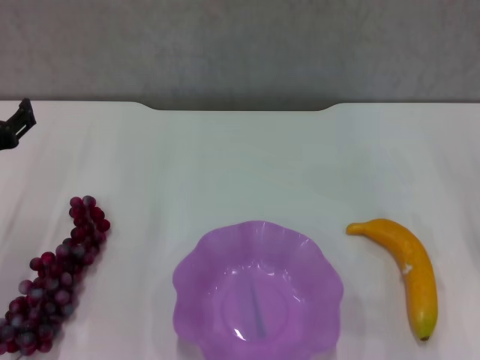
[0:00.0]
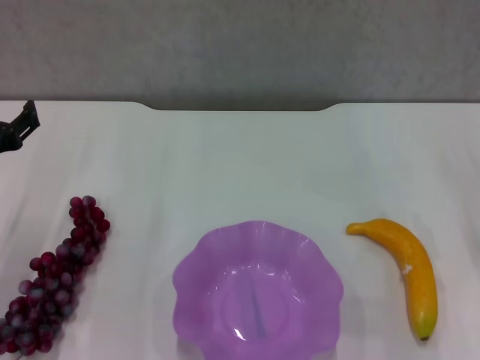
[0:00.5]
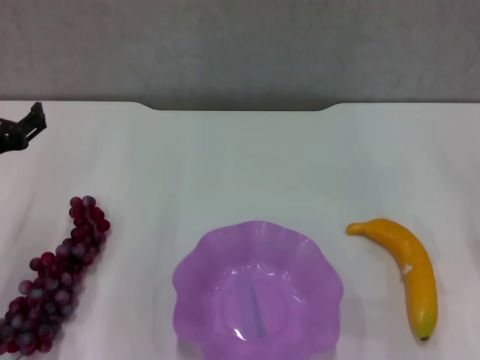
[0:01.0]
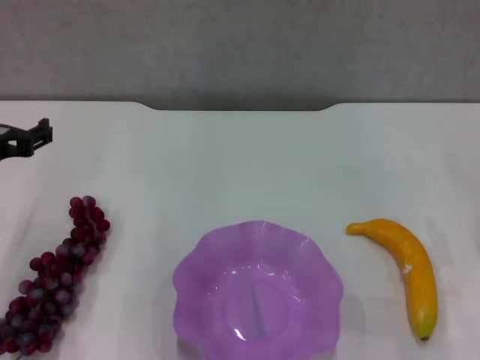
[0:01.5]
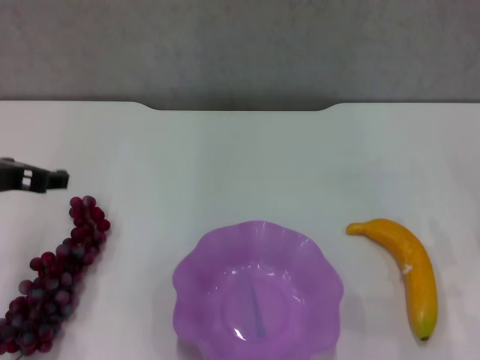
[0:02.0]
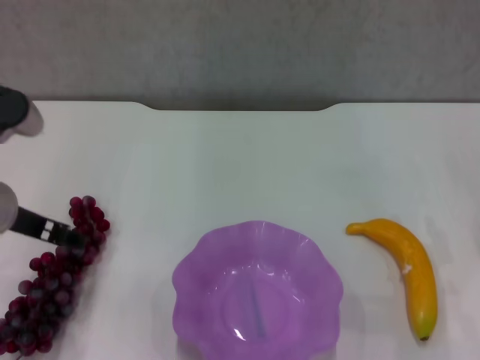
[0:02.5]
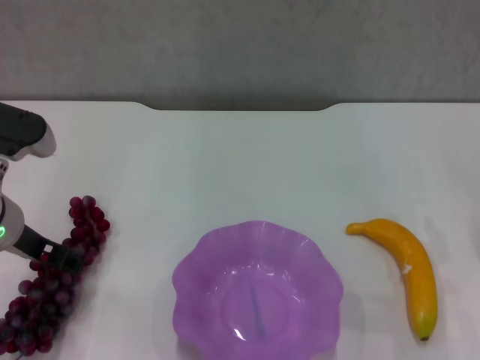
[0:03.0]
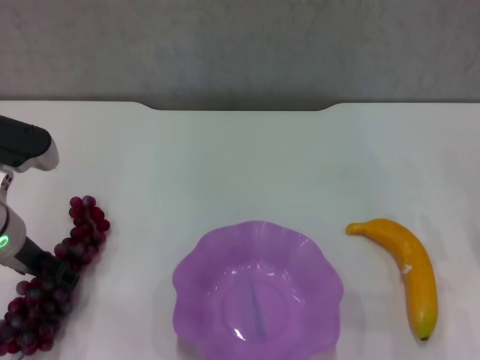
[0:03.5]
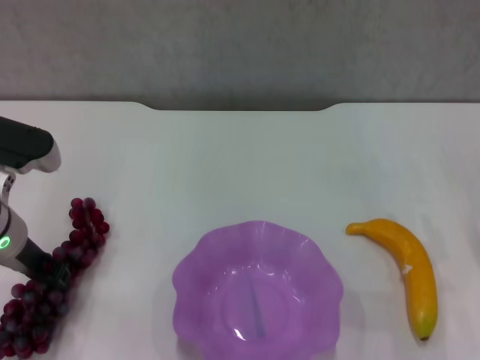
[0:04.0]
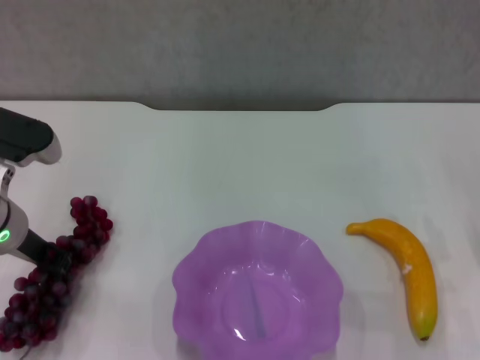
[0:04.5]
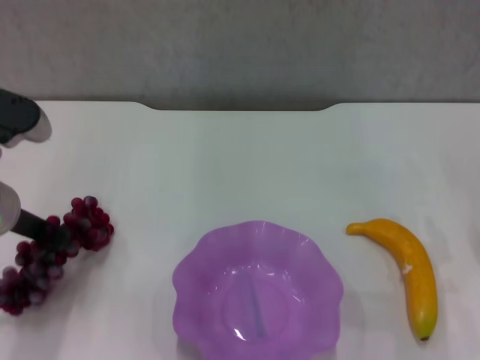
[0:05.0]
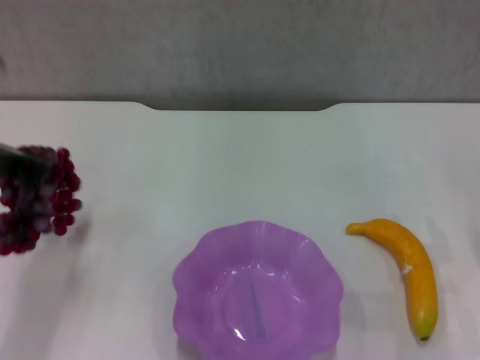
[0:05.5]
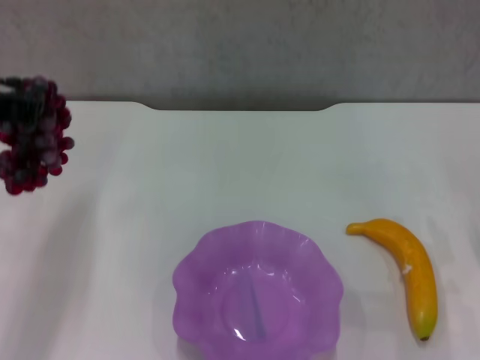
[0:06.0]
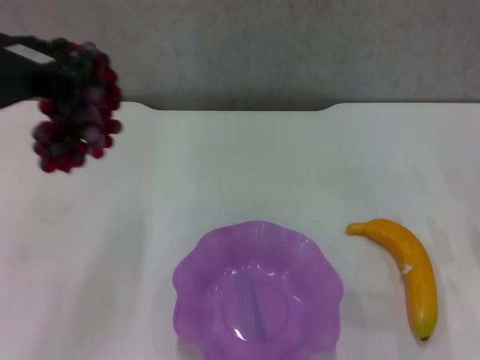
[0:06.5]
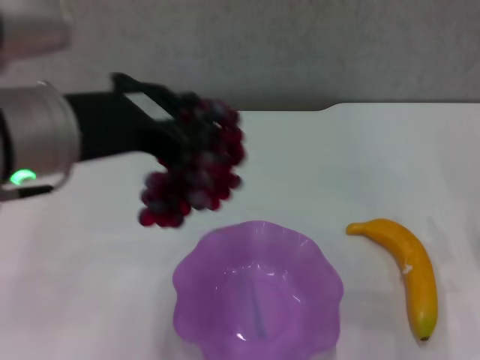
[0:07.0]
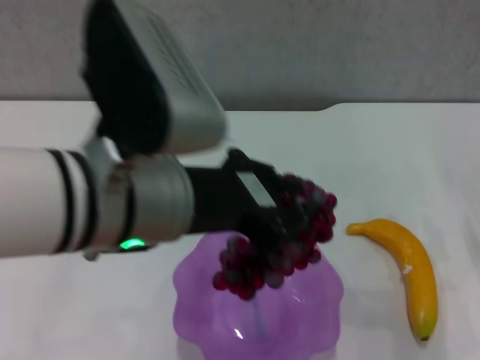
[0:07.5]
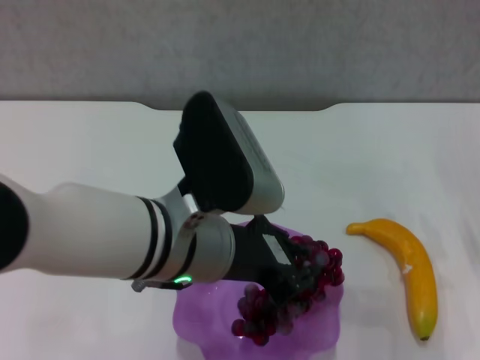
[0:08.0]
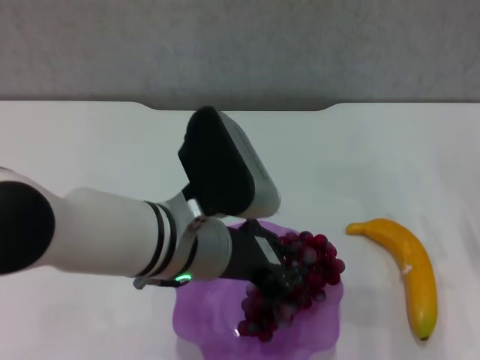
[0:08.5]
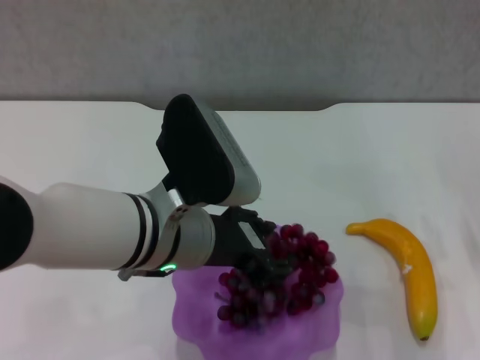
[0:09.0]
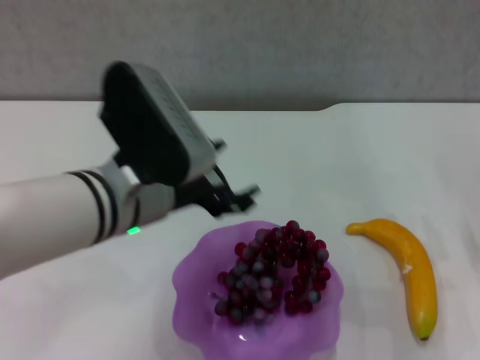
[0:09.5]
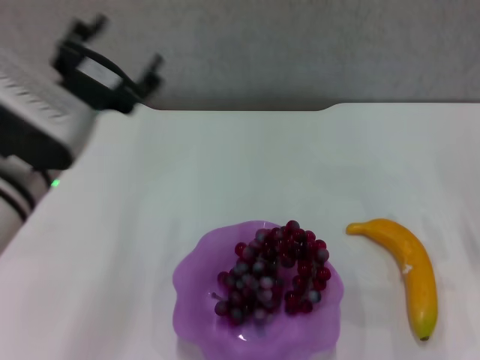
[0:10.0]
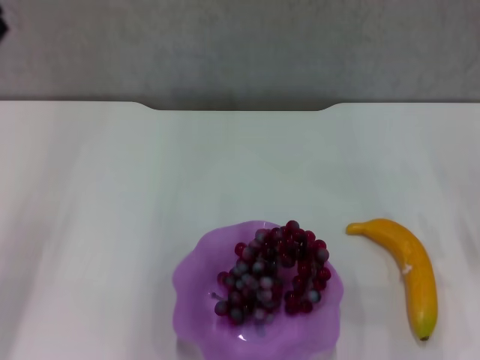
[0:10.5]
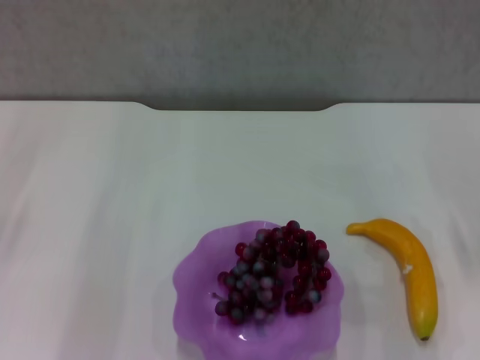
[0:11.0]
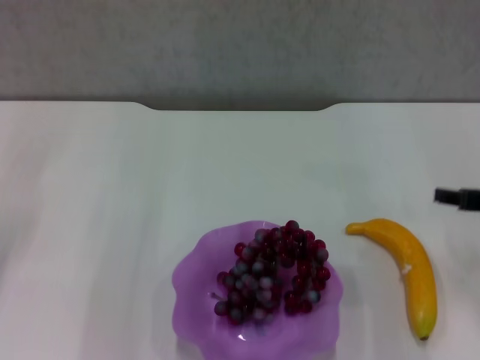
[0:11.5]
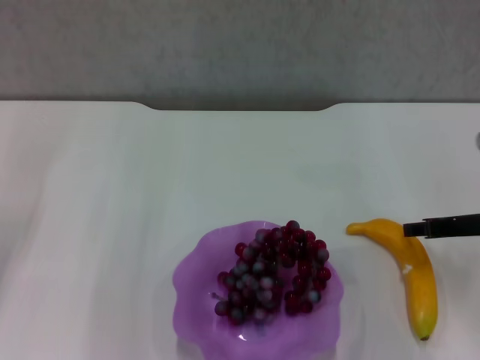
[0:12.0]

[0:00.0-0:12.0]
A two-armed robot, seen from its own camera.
Step, 0:00.0 to 0:04.0: Grasp the grape with left gripper.
Step, 0:04.5 to 0:09.0: Place the grape in the purple plate with left gripper.
0:00.0 to 0:02.0: The left gripper shifts some 5 cm upward.
0:02.0 to 0:04.0: The left gripper moves downward, roughly 5 cm, and closes its fingers.
0:04.0 to 0:06.0: The left gripper travels upward by some 10 cm, and closes up.
0:06.0 to 0:08.0: The left gripper is displaced to the right by roughly 20 cm.
0:08.0 to 0:10.0: The left gripper moves to the left, some 10 cm, and opens.
0:10.0 to 0:12.0: The right gripper moves roughly 5 cm. The left gripper moves to the left, approximately 15 cm.

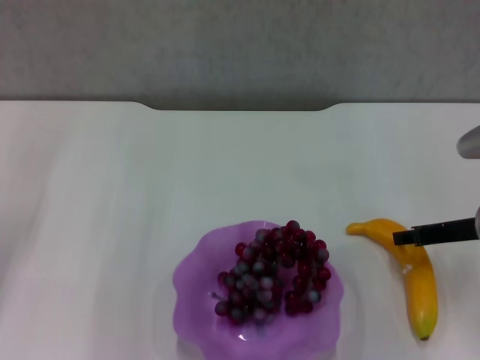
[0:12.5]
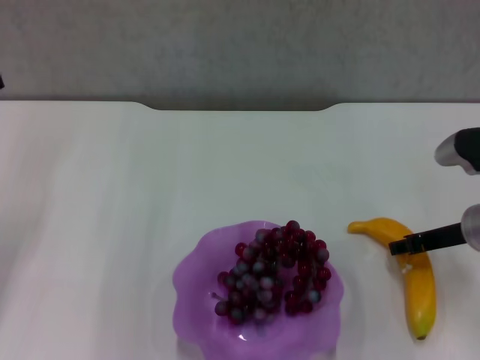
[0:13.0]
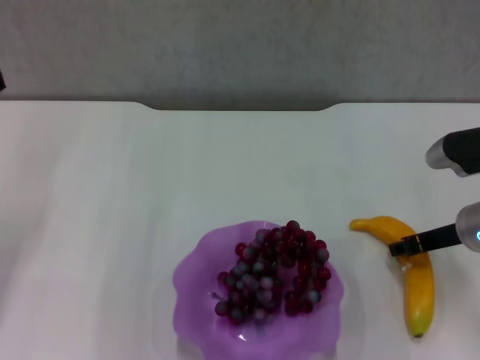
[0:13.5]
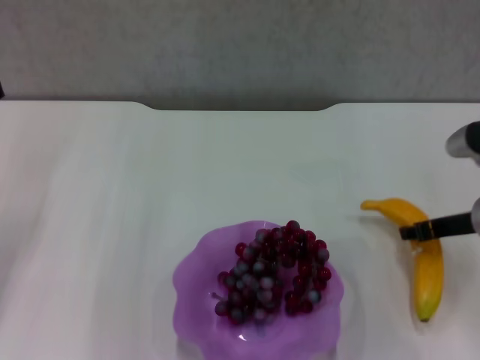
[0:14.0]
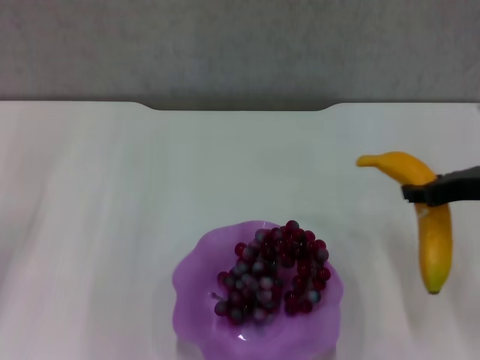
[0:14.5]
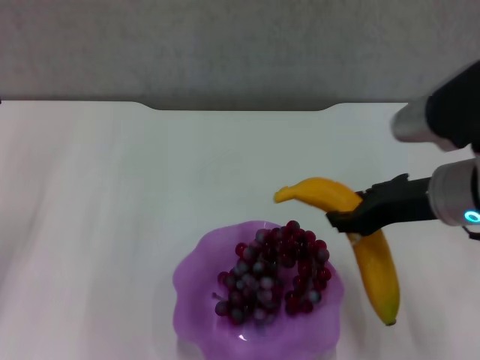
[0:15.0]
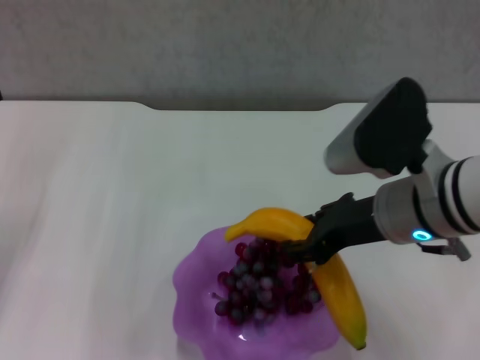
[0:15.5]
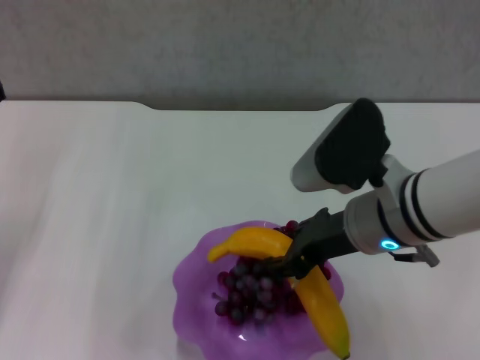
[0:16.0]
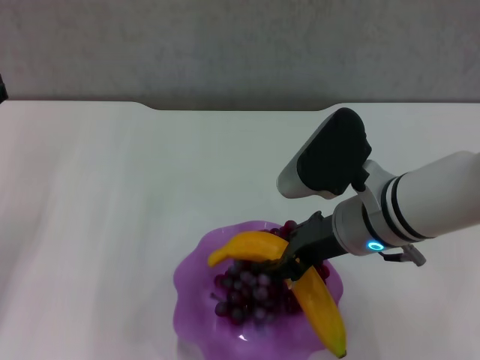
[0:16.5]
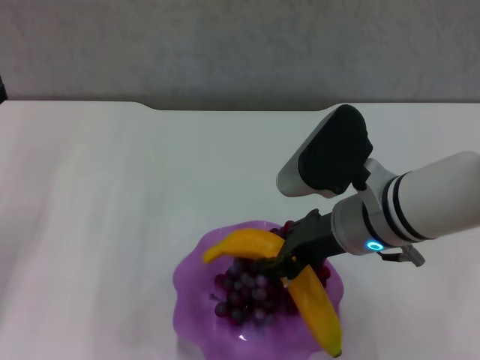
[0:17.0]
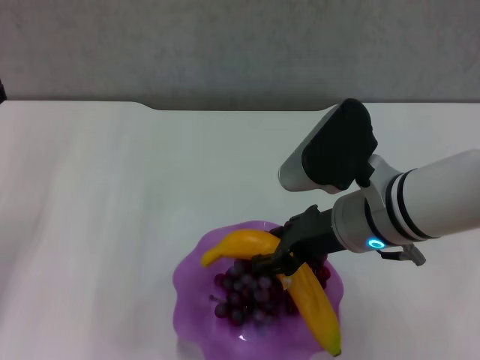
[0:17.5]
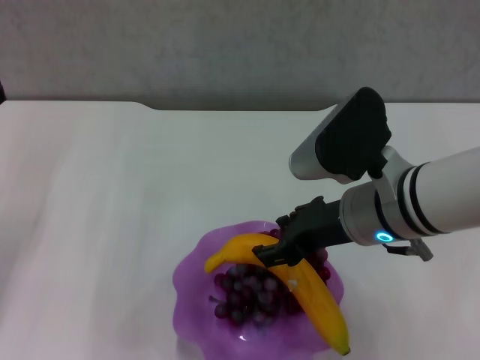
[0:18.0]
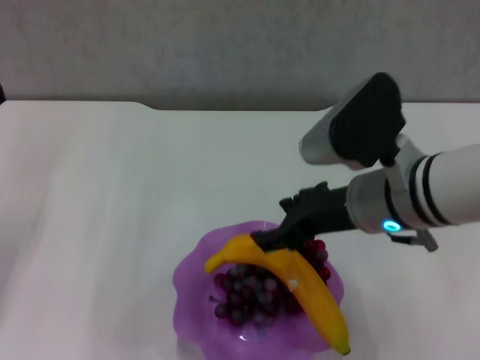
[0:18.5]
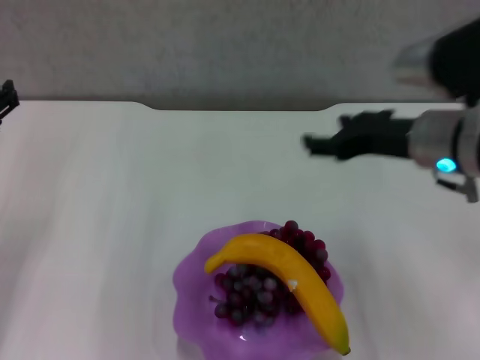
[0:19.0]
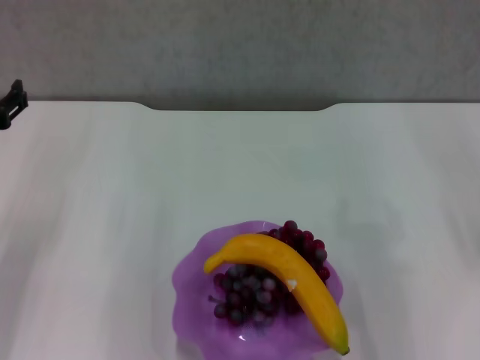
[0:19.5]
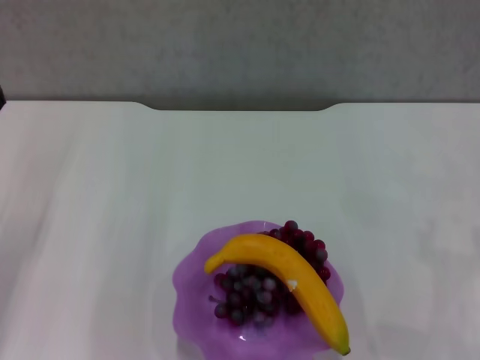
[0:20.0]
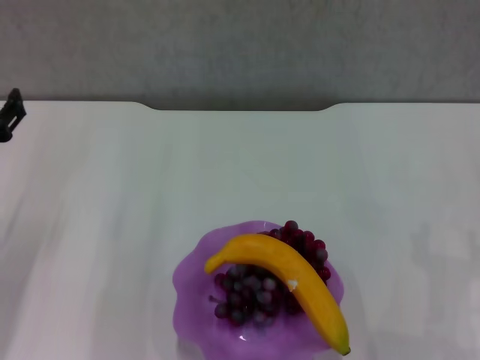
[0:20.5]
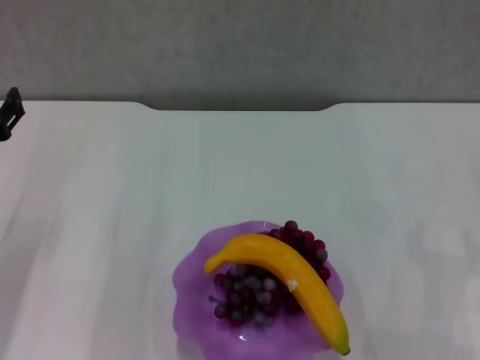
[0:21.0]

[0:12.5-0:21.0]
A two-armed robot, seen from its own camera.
Step, 0:14.0 to 0:18.5: Place the banana in the purple plate with right gripper.
0:12.5 to 0:14.5: The right gripper shifts approximately 5 cm upward.
0:14.5 to 0:16.5: The right gripper heads to the left, covering about 15 cm.
0:16.5 to 0:19.0: The right gripper shifts approximately 10 cm to the right and upward, and opens up.
0:19.0 to 0:21.0: The right gripper heads to the right, downward and backward, covering approximately 20 cm.

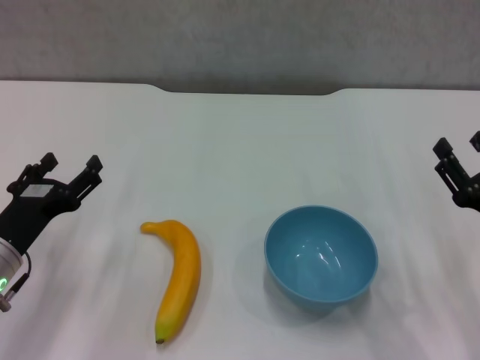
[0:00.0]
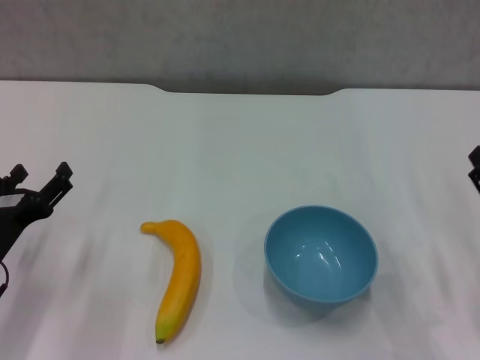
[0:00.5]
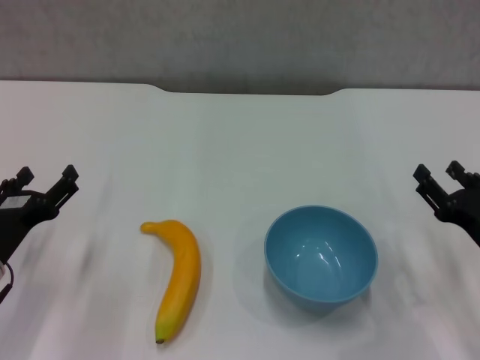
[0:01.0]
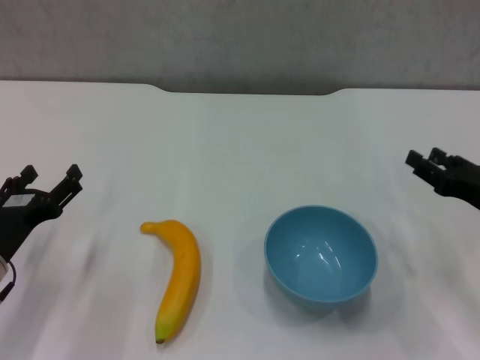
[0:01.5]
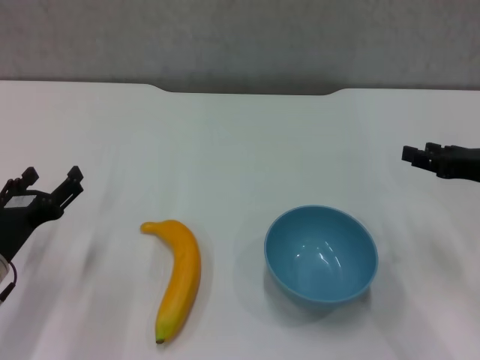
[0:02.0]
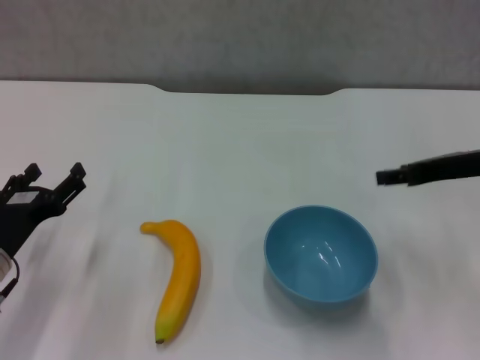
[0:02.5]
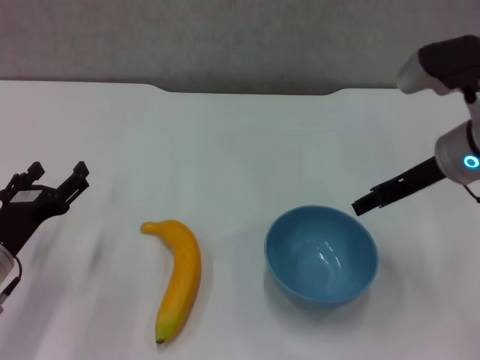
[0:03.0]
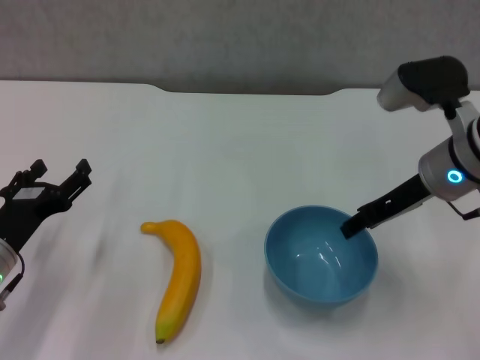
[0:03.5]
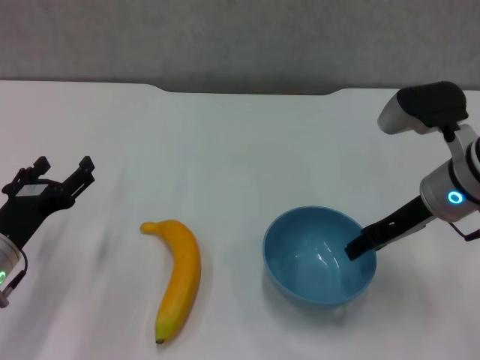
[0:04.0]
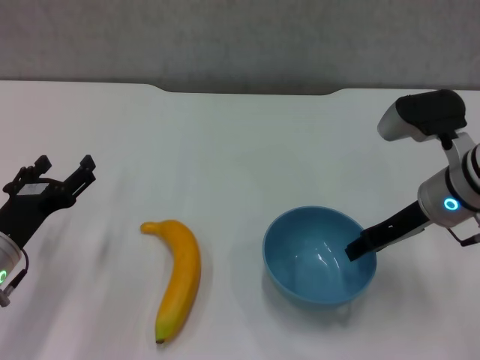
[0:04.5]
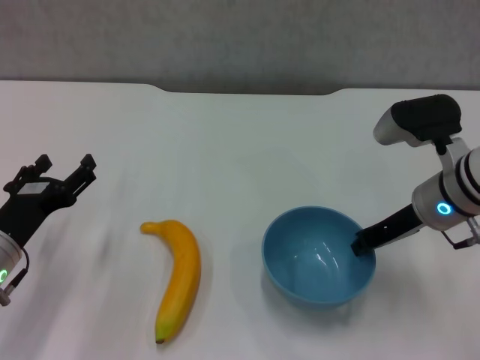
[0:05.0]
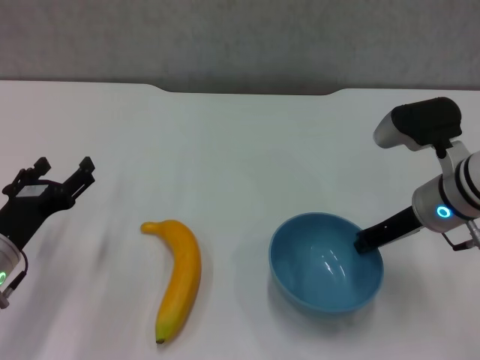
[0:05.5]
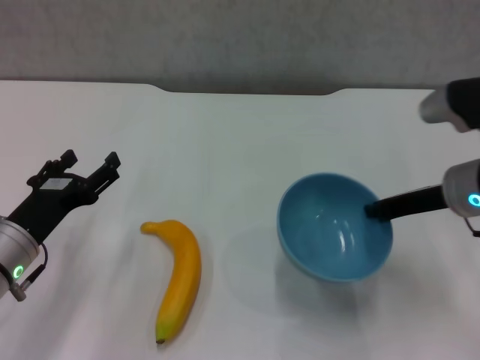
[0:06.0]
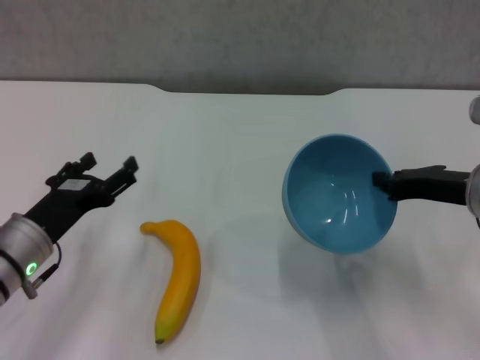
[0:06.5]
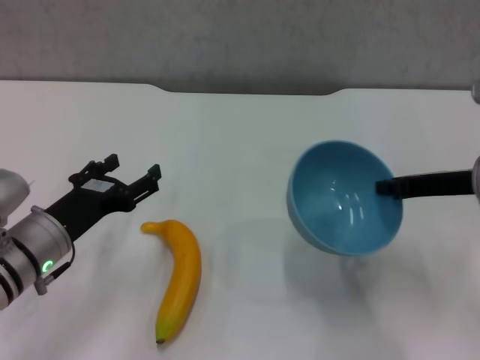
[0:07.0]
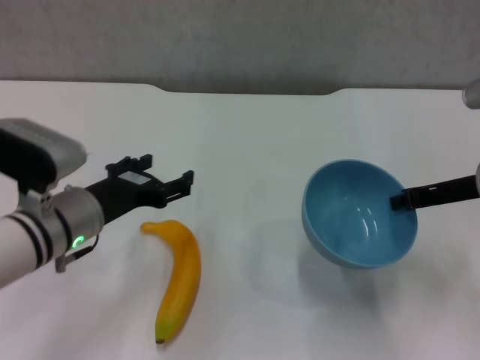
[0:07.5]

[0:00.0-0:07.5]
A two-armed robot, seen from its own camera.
Step, 0:00.0 to 0:05.0: Grasp the blue bowl with right gripper.
Step, 0:05.5 to 0:07.0: Lift the blue bowl with right gripper.
0:00.0 to 0:02.0: The right gripper goes approximately 10 cm forward and upward.
0:02.0 to 0:04.0: The right gripper is displaced to the left by some 10 cm.
0:04.0 to 0:05.5: The right gripper closes up.
0:05.5 to 0:07.5: The grippers both shift to the right by roughly 5 cm.
